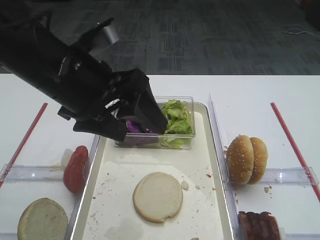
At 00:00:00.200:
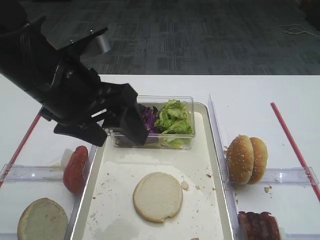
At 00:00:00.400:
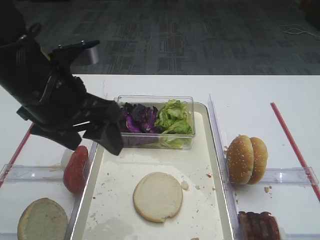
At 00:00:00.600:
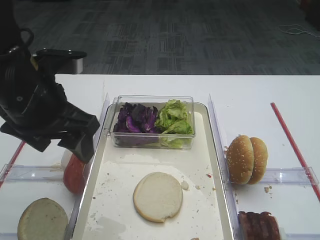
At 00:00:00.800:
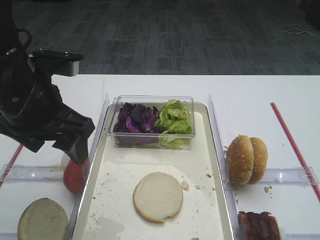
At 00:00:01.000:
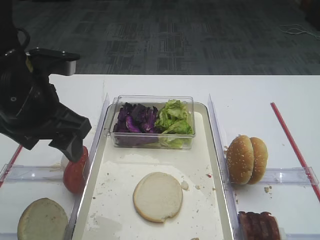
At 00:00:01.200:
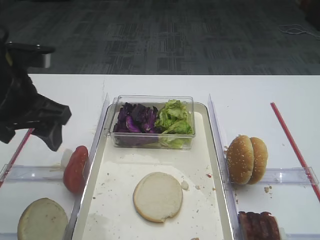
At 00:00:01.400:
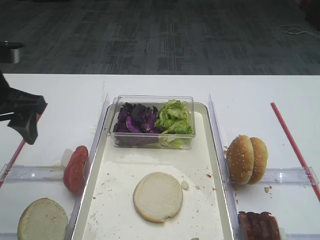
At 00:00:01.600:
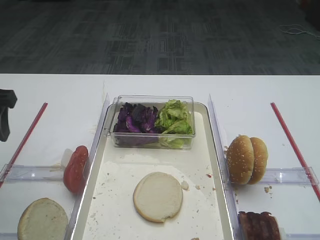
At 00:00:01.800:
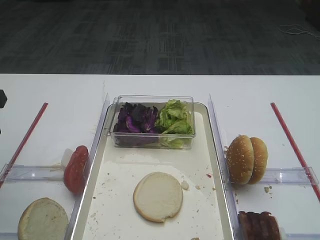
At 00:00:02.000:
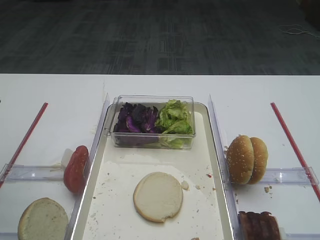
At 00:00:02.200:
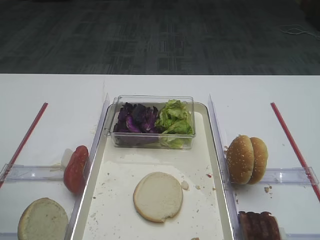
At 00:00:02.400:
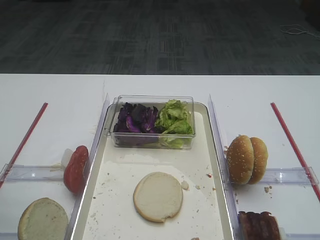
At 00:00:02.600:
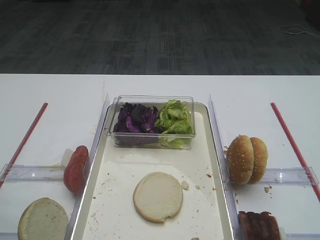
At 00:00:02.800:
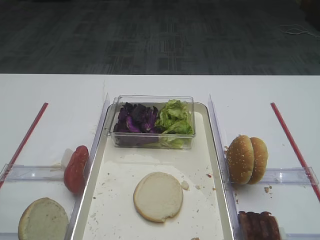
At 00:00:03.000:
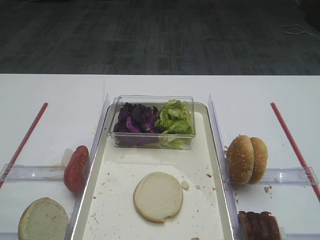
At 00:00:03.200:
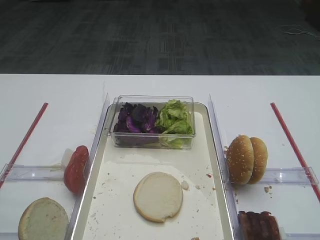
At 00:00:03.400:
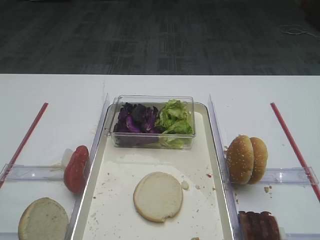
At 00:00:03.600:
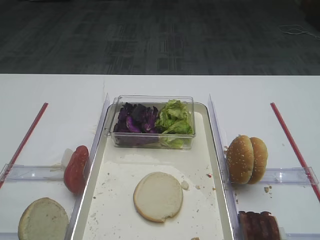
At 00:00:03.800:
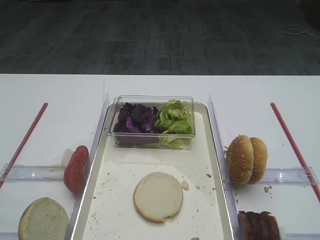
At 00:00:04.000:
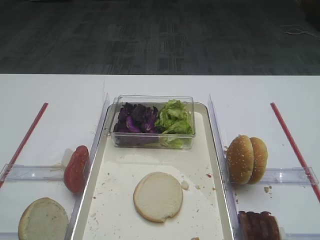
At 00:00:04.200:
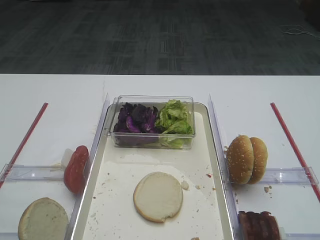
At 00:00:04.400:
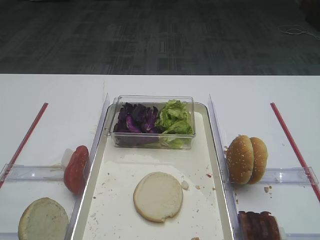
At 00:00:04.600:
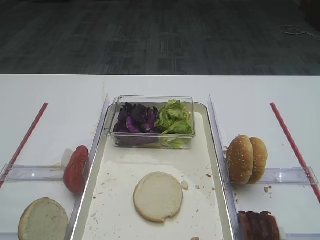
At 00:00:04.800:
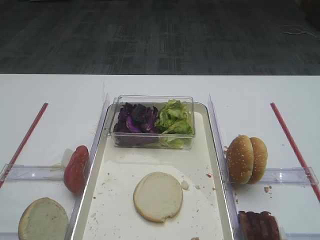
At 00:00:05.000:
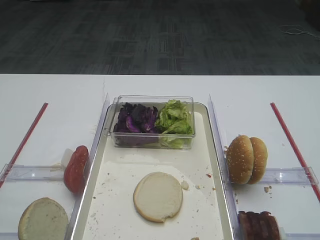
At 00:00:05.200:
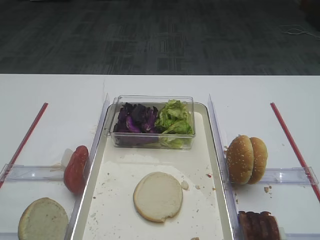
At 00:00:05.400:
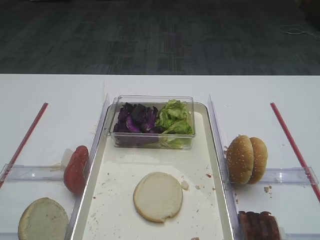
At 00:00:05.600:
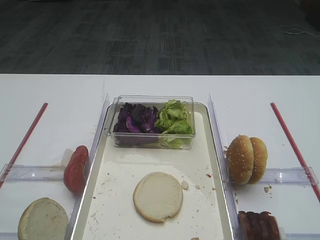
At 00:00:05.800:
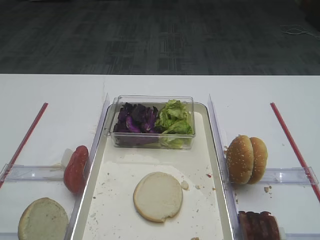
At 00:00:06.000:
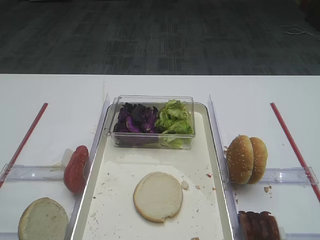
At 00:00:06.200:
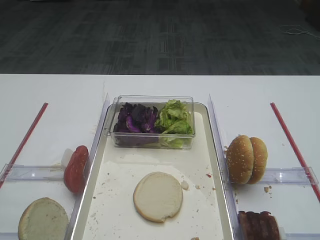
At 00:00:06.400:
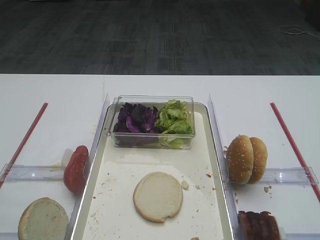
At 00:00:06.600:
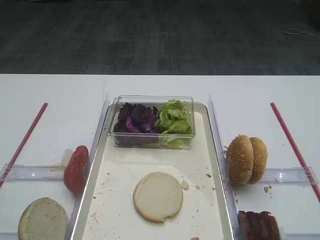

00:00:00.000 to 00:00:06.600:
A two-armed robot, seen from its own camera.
00:00:00.000 to 00:00:01.600: The left gripper is displaced to the left by some 20 cm.
00:00:01.600 to 00:00:03.200: The left gripper heads backward, covering roughly 20 cm.
00:00:05.000 to 00:00:06.600: Both grippers stay put.

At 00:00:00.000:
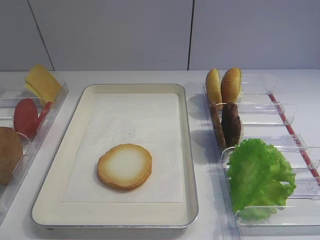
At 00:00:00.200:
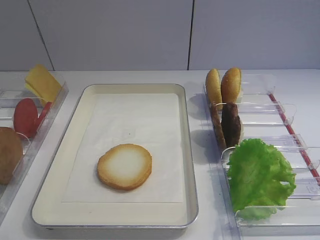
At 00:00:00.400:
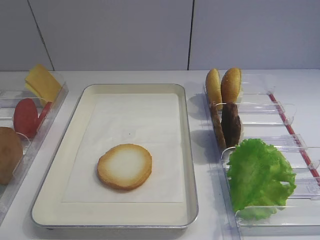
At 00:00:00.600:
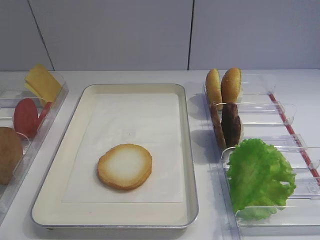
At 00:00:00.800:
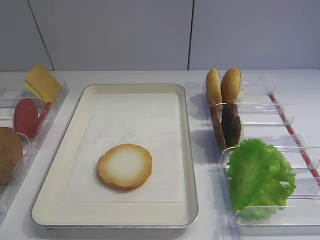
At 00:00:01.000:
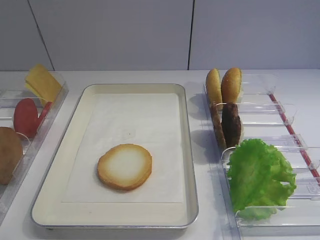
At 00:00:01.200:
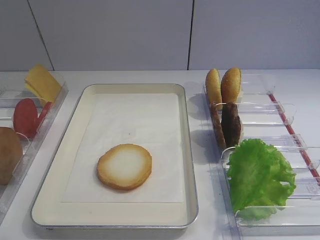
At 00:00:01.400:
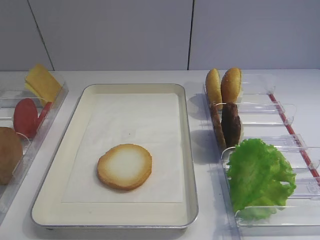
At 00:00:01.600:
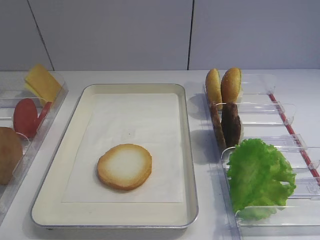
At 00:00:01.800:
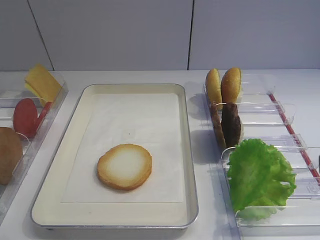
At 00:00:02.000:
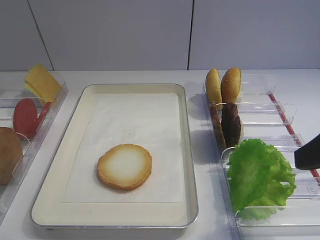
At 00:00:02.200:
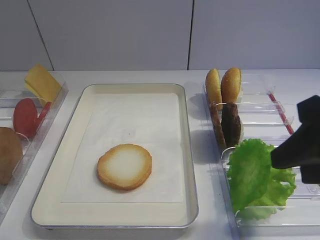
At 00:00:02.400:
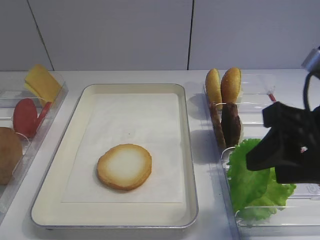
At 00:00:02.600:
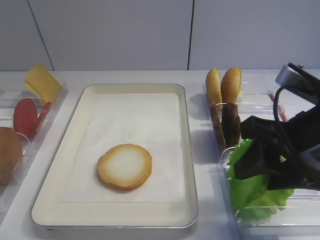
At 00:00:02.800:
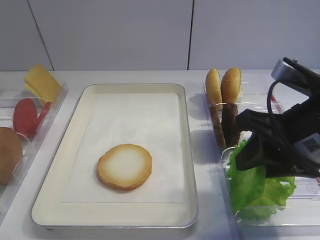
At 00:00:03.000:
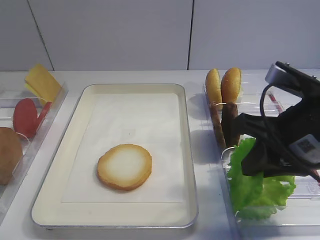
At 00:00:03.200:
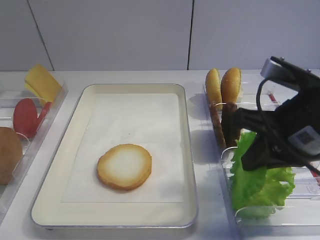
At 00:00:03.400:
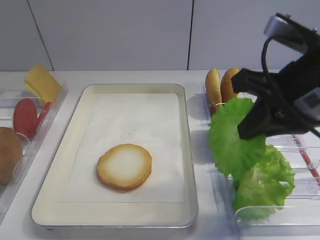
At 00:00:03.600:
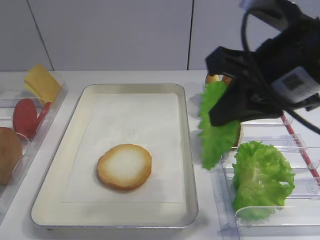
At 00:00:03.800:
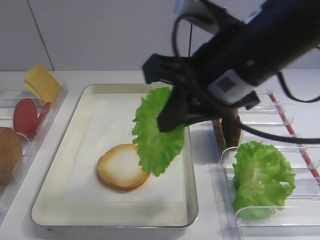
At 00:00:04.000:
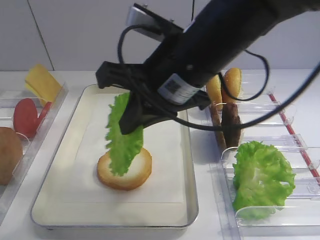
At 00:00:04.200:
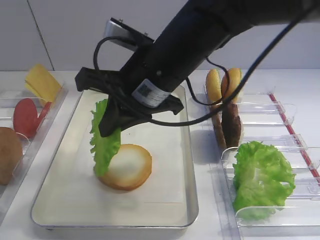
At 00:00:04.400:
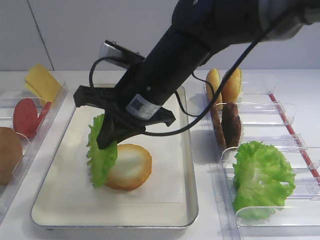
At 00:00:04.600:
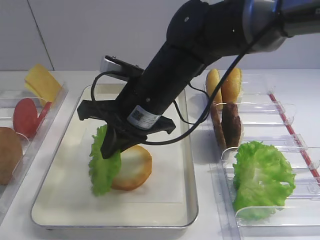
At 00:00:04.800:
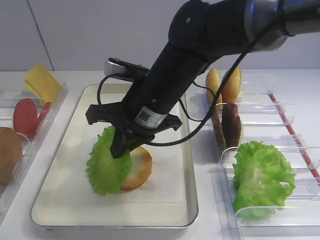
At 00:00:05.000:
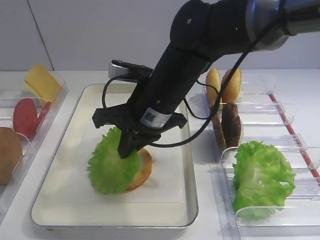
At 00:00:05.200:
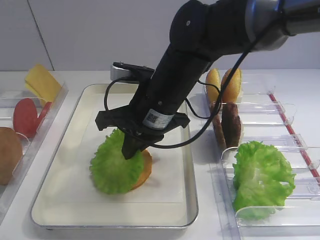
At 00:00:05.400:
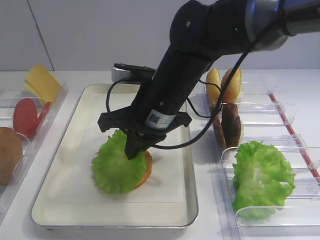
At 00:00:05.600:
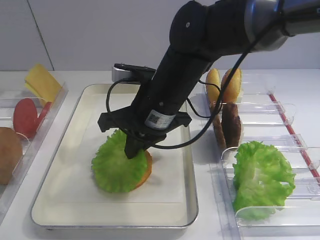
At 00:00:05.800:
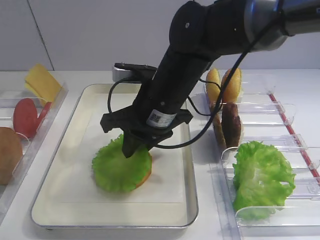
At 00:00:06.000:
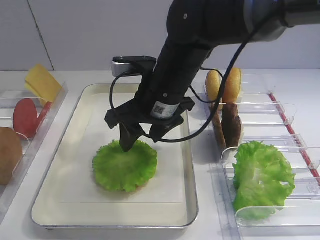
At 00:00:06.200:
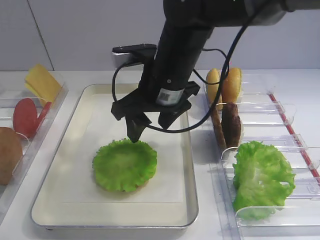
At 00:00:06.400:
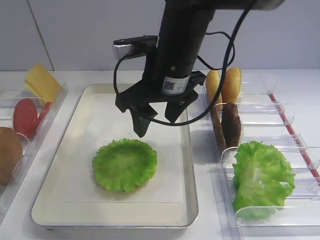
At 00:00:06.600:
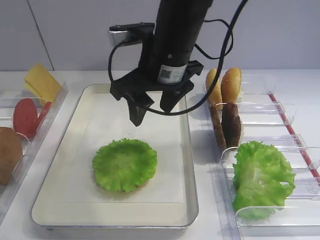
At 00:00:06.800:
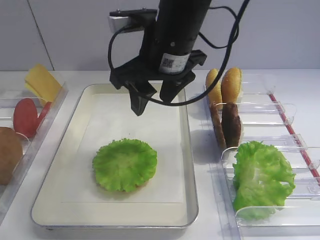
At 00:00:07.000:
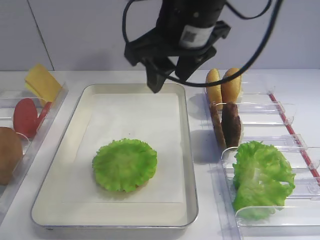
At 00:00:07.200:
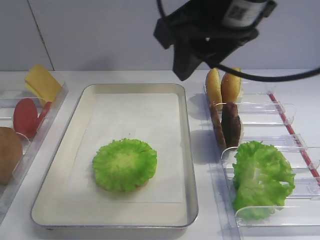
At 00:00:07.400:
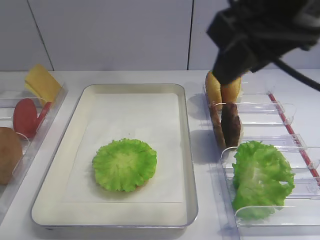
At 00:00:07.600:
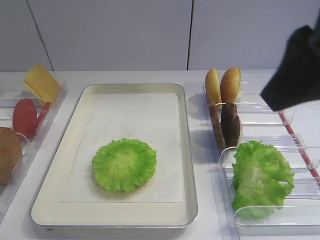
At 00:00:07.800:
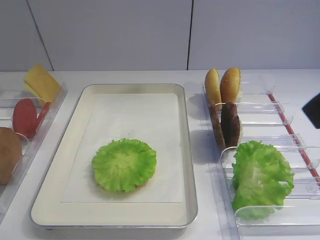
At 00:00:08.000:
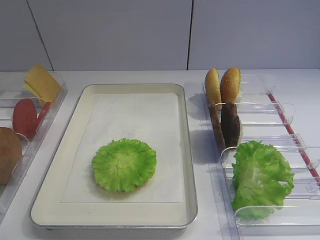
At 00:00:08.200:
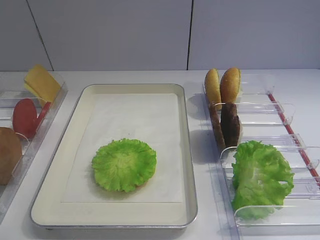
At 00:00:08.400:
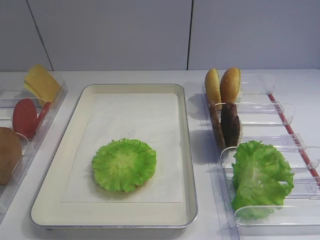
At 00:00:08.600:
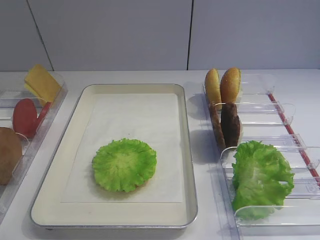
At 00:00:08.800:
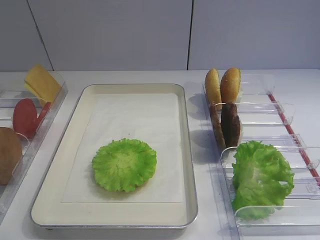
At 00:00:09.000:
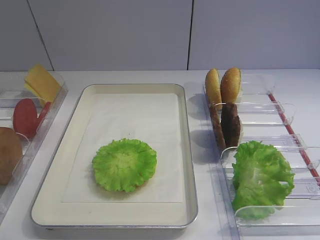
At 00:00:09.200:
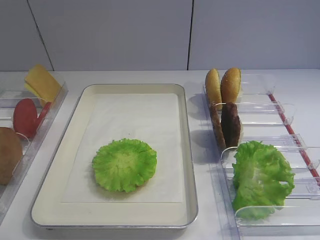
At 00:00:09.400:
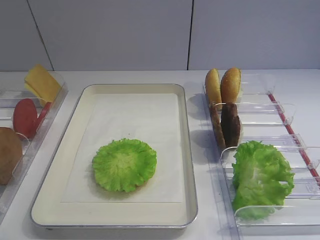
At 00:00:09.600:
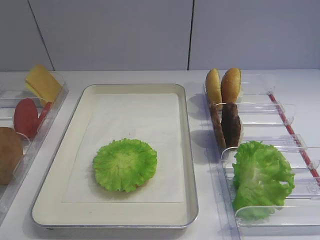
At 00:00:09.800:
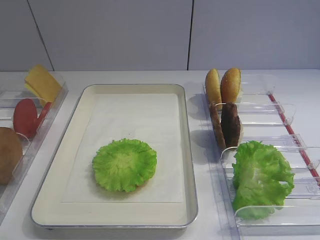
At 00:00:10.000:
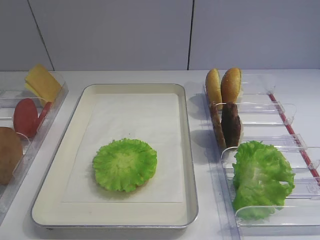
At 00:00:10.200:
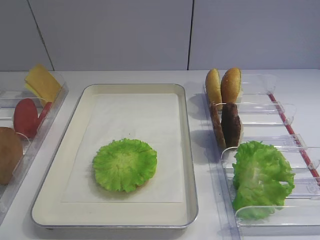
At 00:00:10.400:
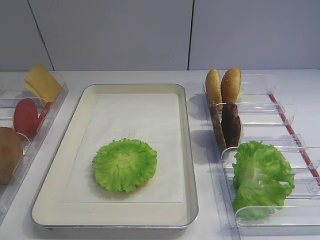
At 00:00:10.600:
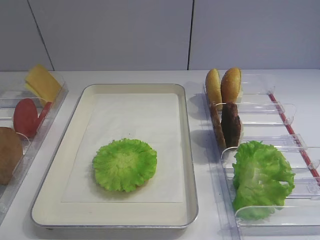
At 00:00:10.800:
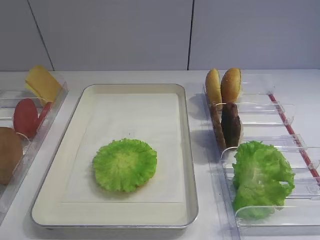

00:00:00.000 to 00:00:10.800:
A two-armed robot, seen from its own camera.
Step, 00:00:00.000 to 00:00:03.200: Pick up the lettuce leaf with the right gripper.
Step, 00:00:03.400 to 00:00:06.200: Place the lettuce leaf on the bread slice with the right gripper.
00:00:01.600 to 00:00:03.000: The right gripper shifts about 15 cm forward, to the left and downward, and closes.
00:00:03.000 to 00:00:04.600: The right gripper travels to the left and forward by some 20 cm.
00:00:04.600 to 00:00:06.200: The right gripper opens its fingers.
00:00:06.200 to 00:00:07.800: The right gripper is displaced backward, to the right and upward by about 30 cm.
00:00:07.800 to 00:00:09.200: The right gripper travels downward, backward and to the right by roughly 15 cm.
